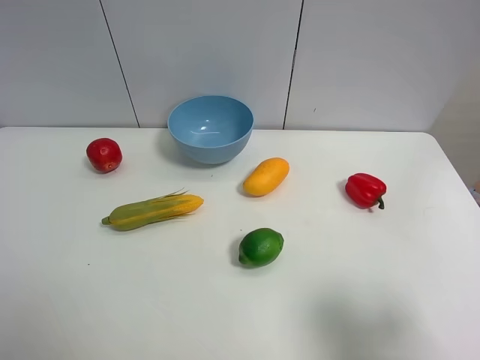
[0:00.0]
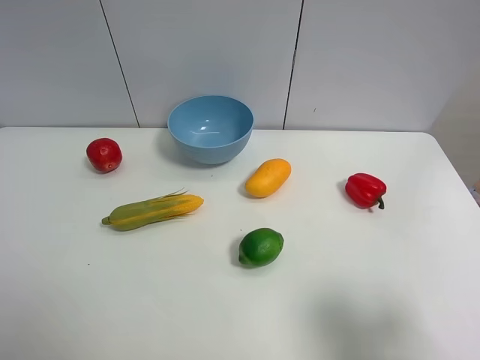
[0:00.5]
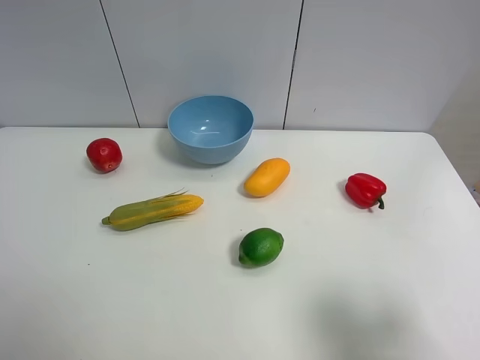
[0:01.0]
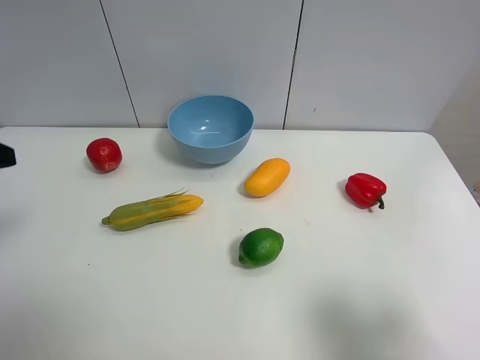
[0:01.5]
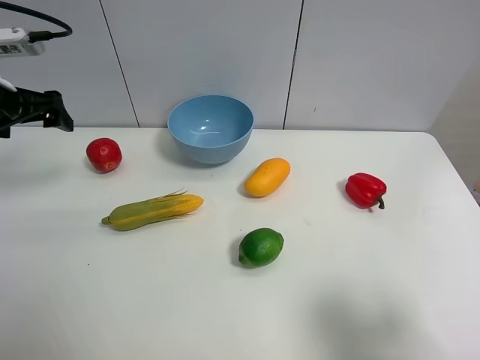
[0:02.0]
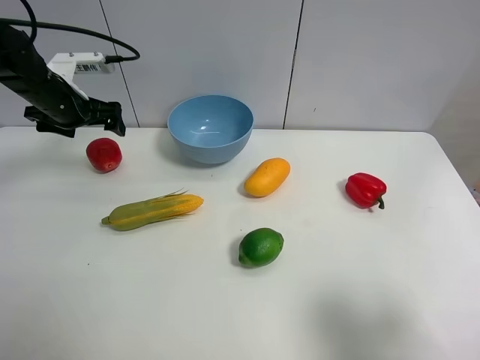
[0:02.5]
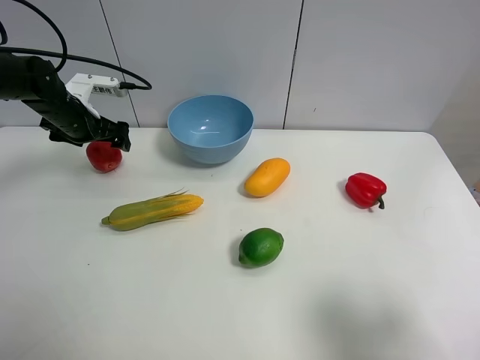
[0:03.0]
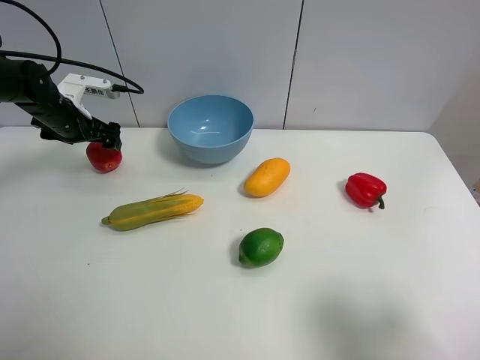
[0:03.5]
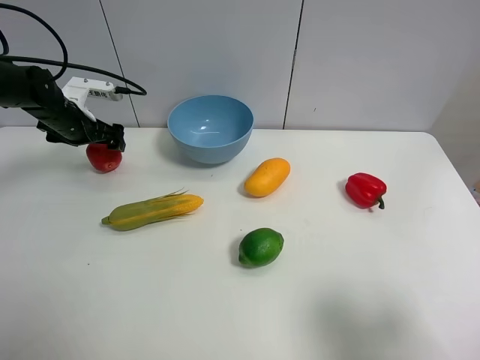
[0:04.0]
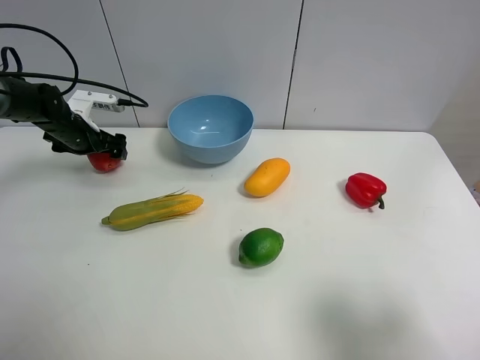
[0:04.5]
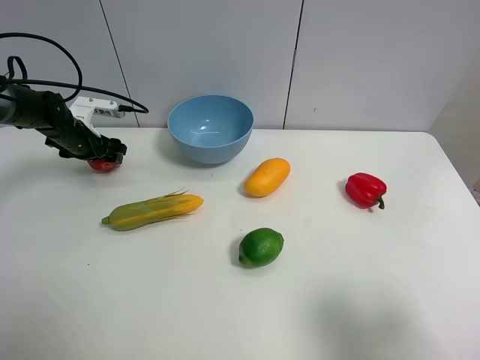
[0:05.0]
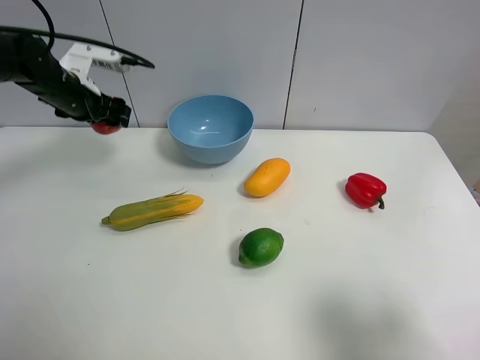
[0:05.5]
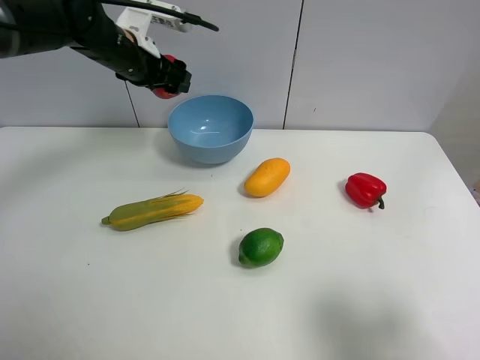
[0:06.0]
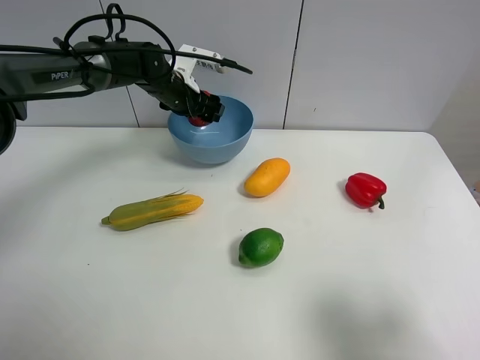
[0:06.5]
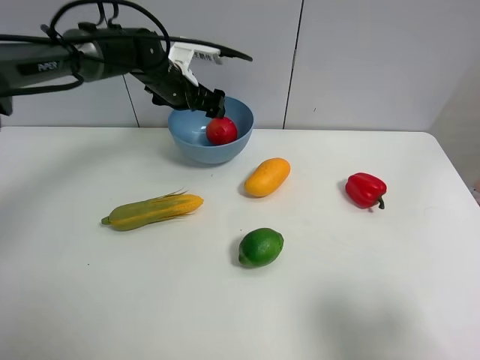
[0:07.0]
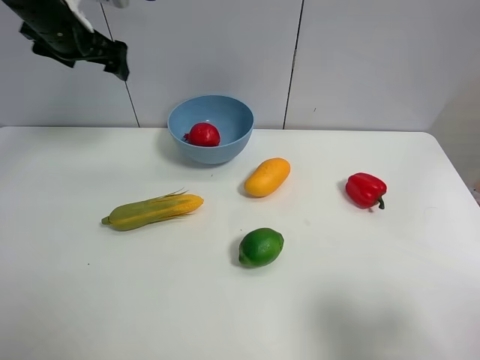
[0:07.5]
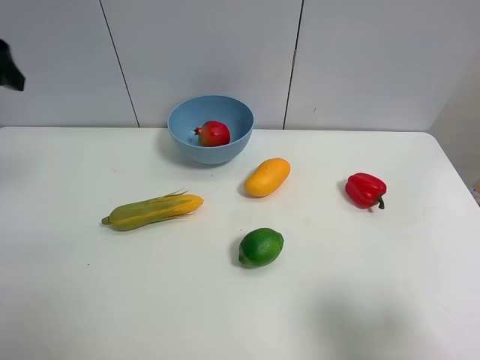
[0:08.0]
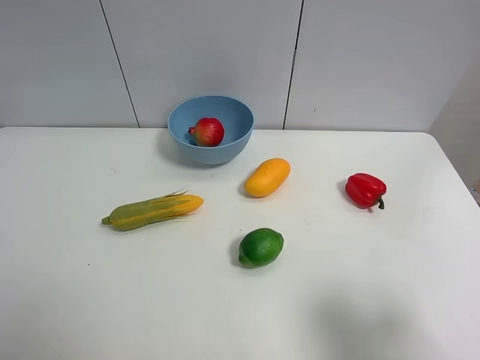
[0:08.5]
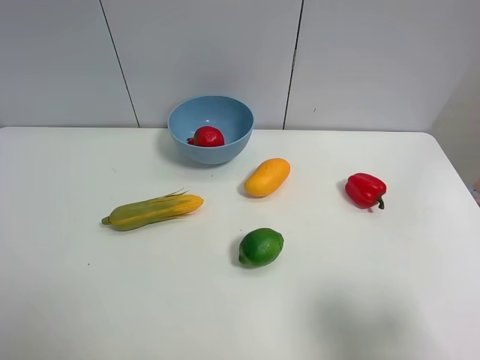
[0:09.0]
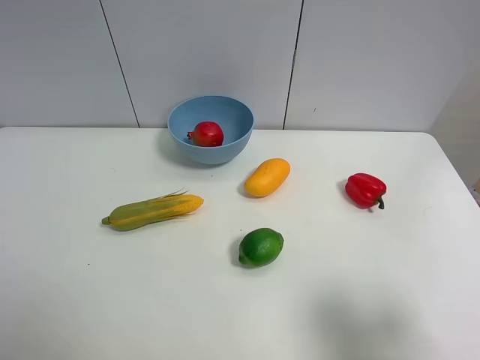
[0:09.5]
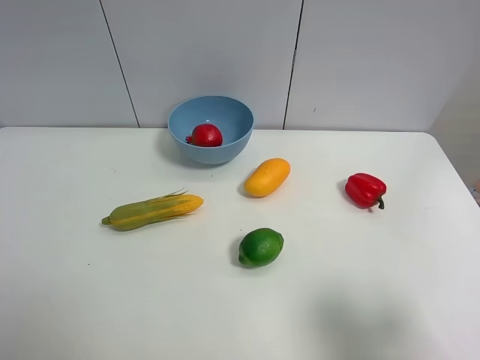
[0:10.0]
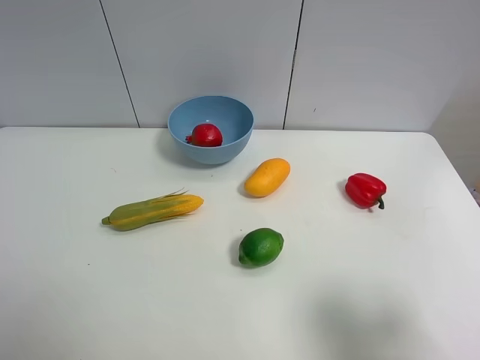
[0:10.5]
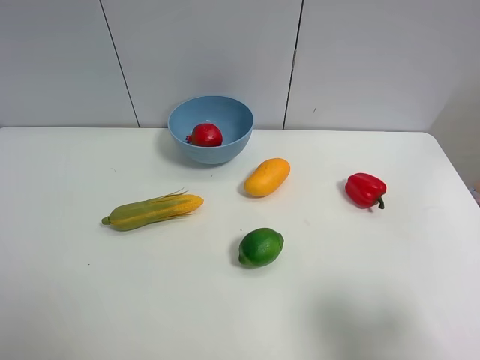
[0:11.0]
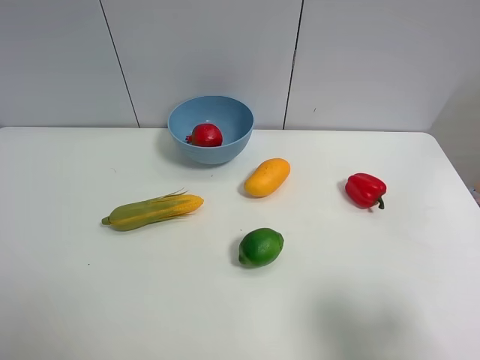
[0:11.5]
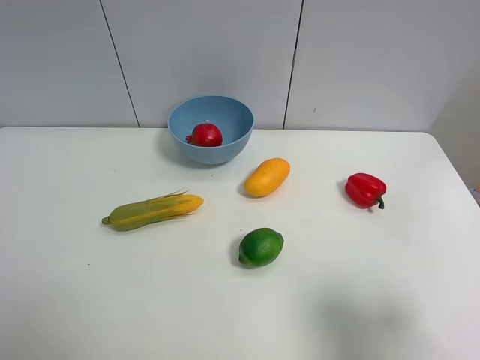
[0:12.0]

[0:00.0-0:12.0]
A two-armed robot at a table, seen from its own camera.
Task of the whole recording: Put the three fruits on the table into a bowl.
Step, 0:00.0 to 0:05.0: Grasp the pomegranate with left gripper.
Step, 0:05.5 to 0:06.5: Place the pomegranate in the blue bowl with left gripper.
0:00.0 to 0:02.0: The left gripper moves forward, some 35 cm.
0:02.0 to 0:04.0: The left gripper shifts some 15 cm downward and forward.
0:04.0 to 0:06.0: The left gripper shifts roughly 20 cm to the right and upward, and closes up.
0:06.0 to 0:08.0: The left gripper is displaced backward, to the left and upward by about 30 cm, and opens.
0:08.0 to 0:10.0: The left gripper is displaced backward by roughly 25 cm.

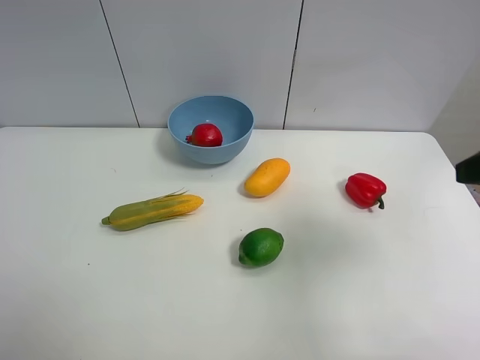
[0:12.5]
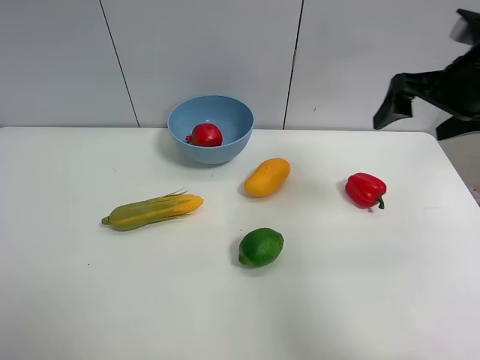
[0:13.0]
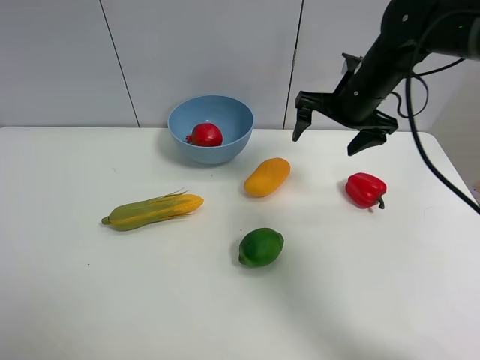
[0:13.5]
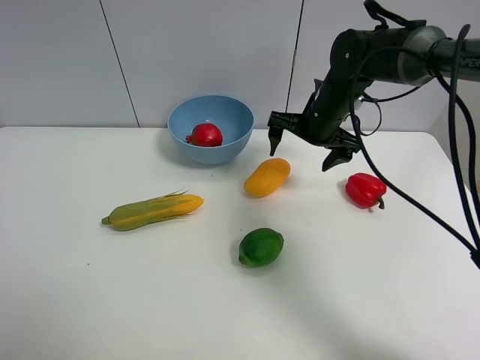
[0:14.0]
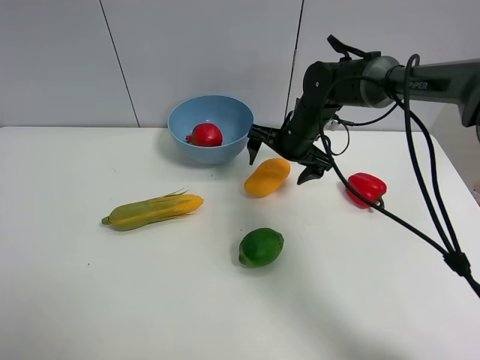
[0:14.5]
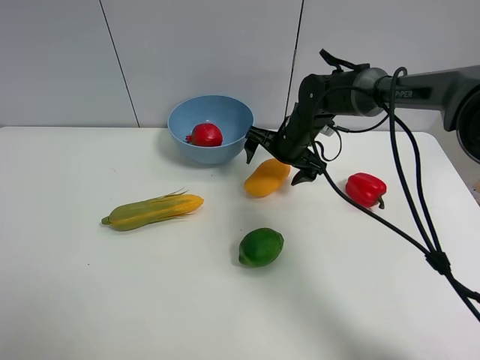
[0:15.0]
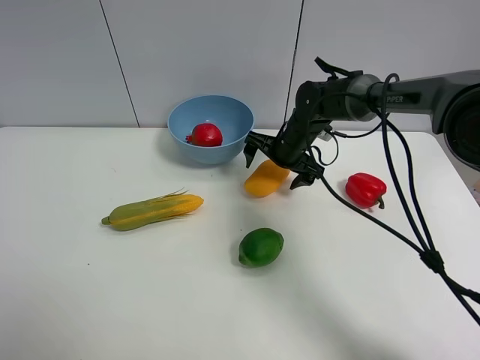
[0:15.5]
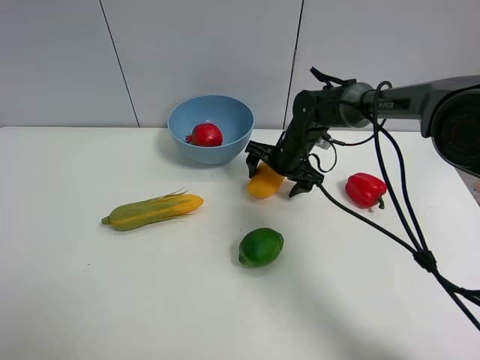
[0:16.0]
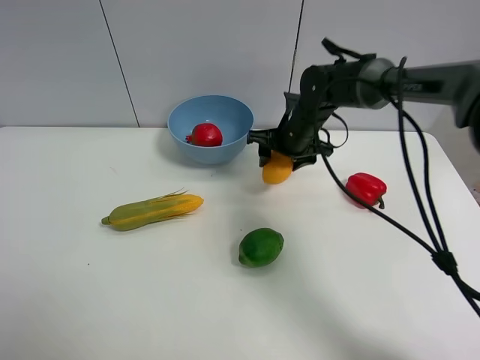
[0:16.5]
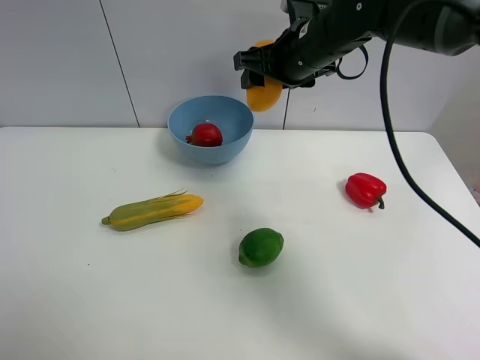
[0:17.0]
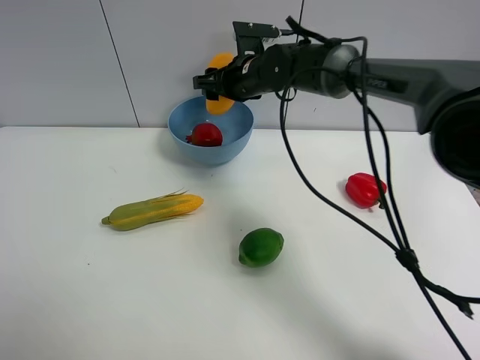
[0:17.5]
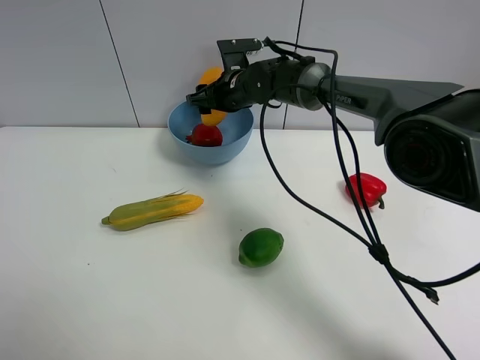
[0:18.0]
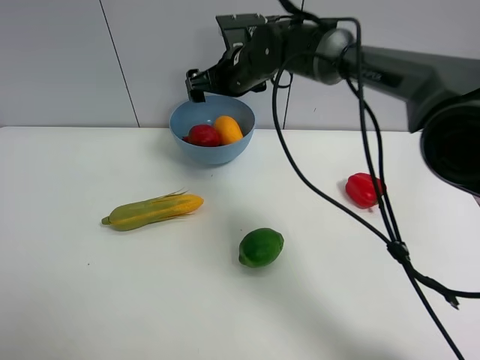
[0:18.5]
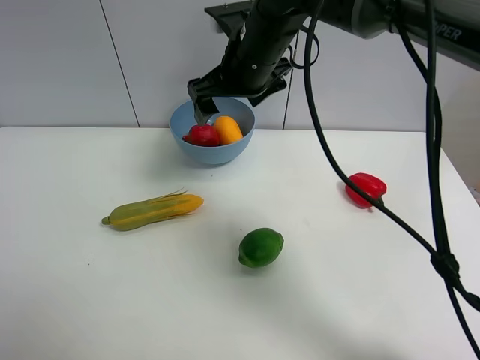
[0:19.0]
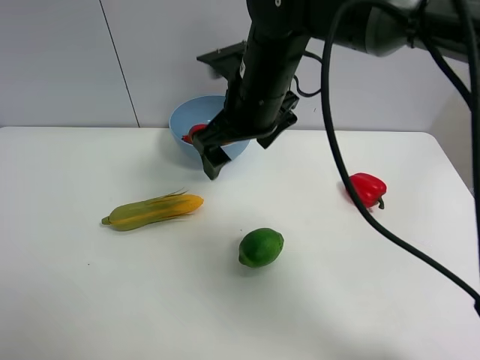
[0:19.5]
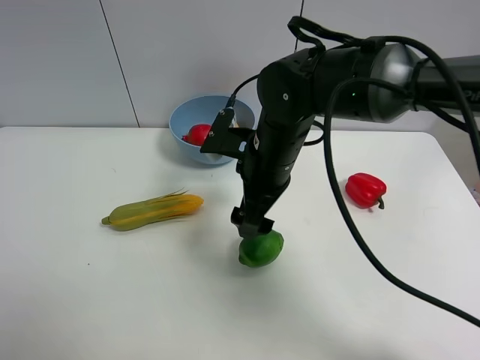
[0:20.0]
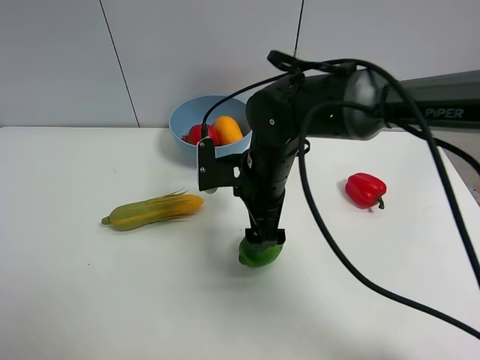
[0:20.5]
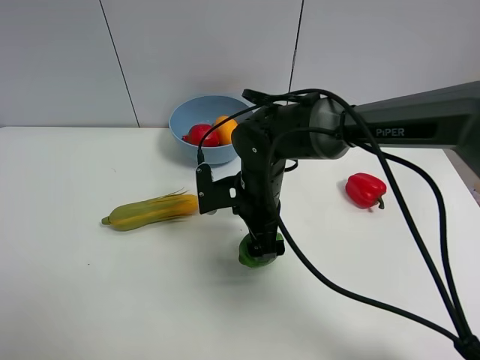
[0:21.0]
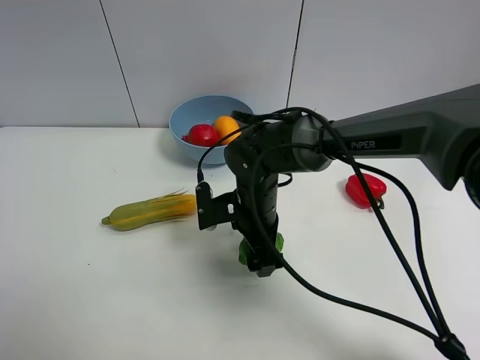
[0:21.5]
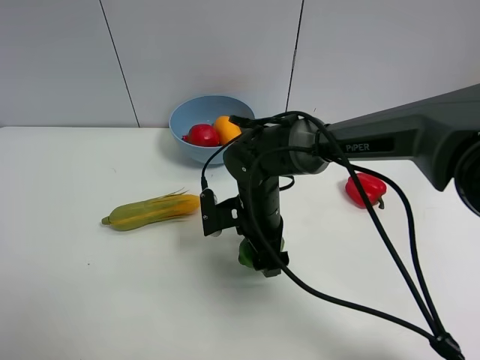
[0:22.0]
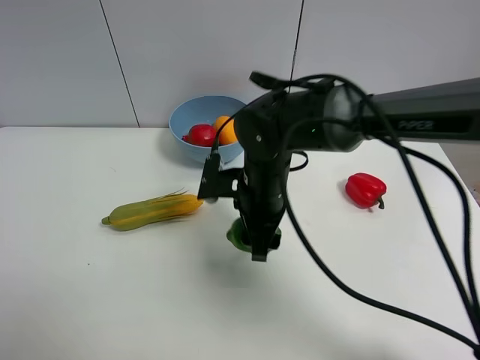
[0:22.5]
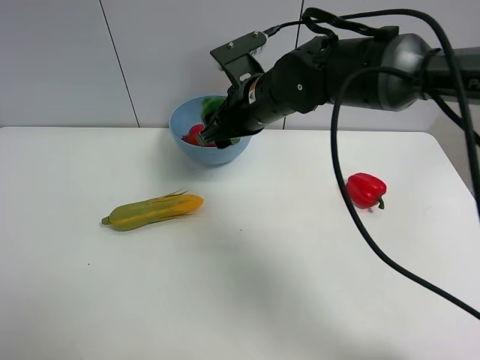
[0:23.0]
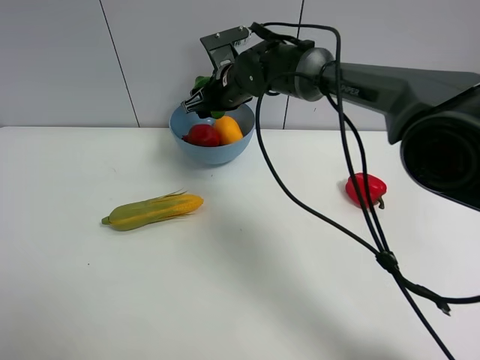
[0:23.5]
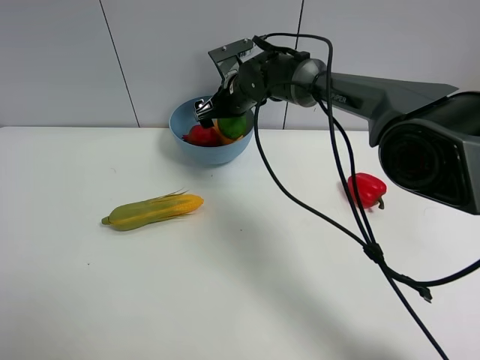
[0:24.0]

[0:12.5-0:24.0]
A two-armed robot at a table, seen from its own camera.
Task of the whole recording: Put the three fruits on the table into a bowl.
Step, 0:12.5 to 0:16.0: Grasp the mango with right gripper.
Step, 0:16.5 to 0:18.0: Place the mango in the blue bowl with right gripper.
Step, 0:18.5 to 0:22.0: Grasp the green lemon with right gripper.
0:12.5 to 0:14.5: The right gripper moves forward, to the left and downward, roughly 35 cm.
0:14.5 to 0:16.5: The right gripper closes up.
0:16.5 to 0:18.5: The right gripper swings up and down, roughly 10 cm each way, with 2 reversals, and opens its fingers.
0:18.5 to 0:20.0: The right gripper travels backward by about 15 cm.
0:20.0 to 0:22.0: The right gripper shifts some 10 cm downward, and closes its fingers.
0:22.0 to 0:24.0: The right gripper moves forward, approximately 20 cm, and opens.

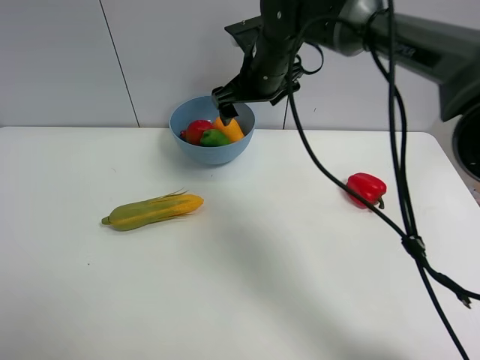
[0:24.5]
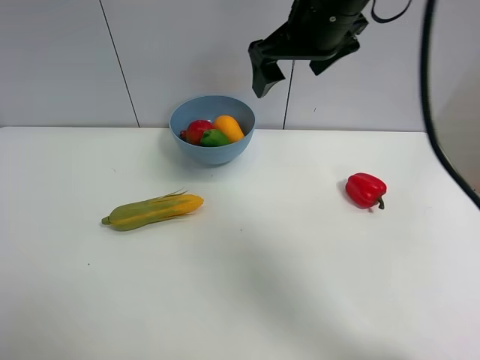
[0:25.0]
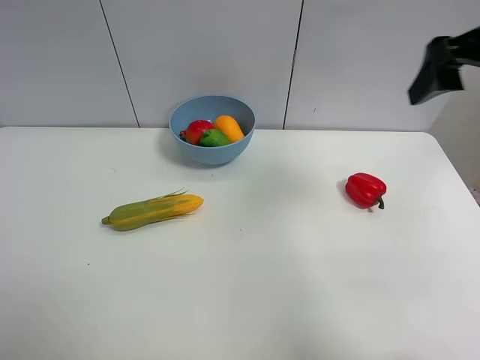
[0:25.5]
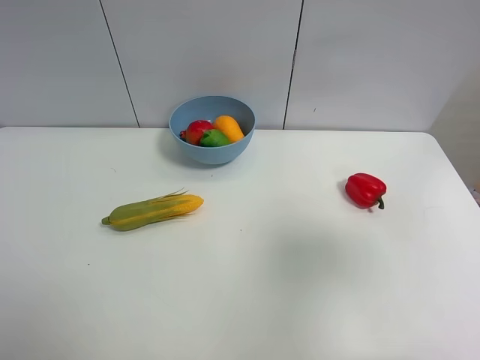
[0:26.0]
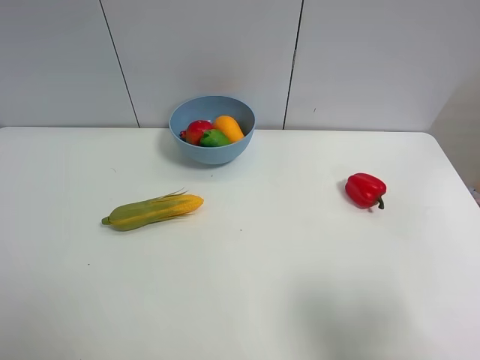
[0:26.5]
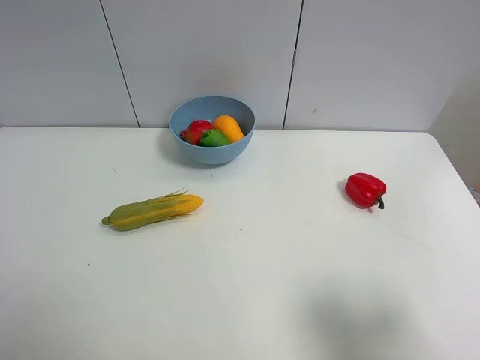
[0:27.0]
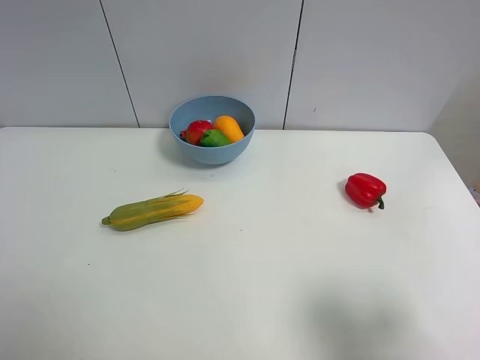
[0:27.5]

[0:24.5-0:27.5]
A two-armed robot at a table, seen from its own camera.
Task of the whole recording: Put the three fruits on the table into a bowl.
0:24.5 to 0:26.0: The right gripper shifts about 40 cm backward and to the right.
0:26.0 to 0:27.5: The right gripper goes roughly 15 cm downward and backward.
